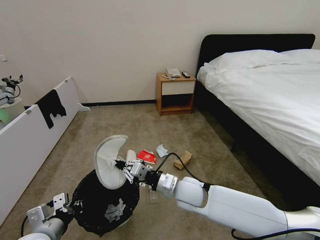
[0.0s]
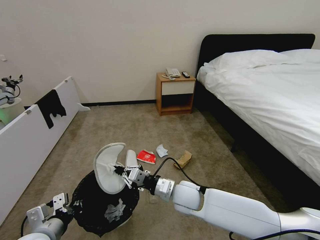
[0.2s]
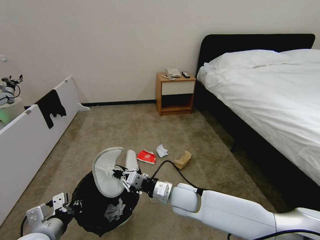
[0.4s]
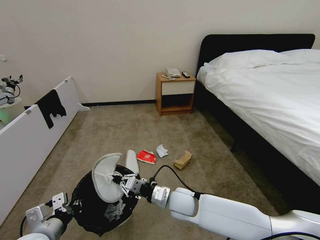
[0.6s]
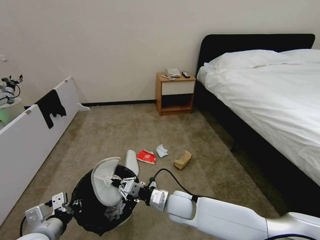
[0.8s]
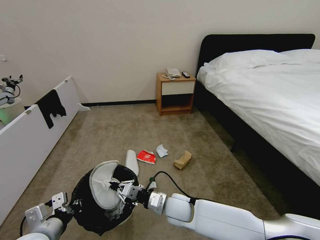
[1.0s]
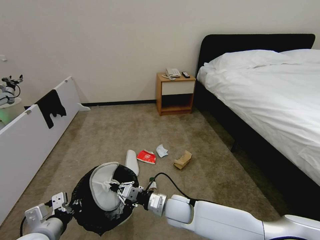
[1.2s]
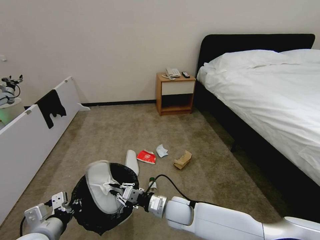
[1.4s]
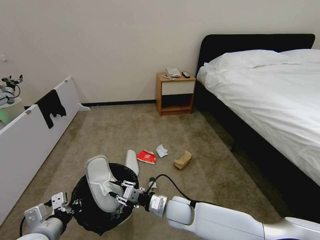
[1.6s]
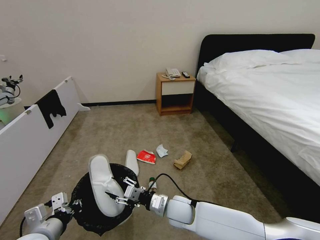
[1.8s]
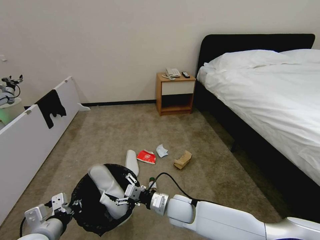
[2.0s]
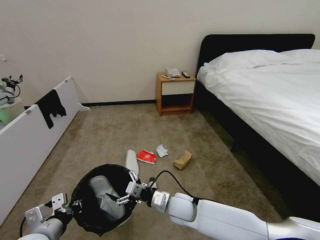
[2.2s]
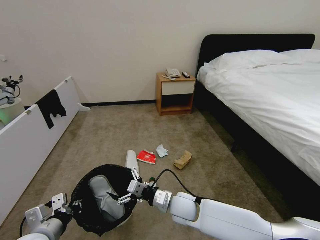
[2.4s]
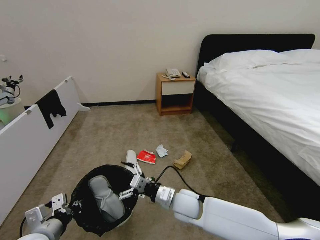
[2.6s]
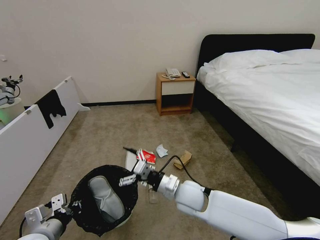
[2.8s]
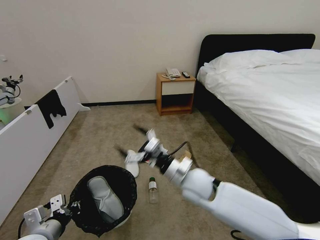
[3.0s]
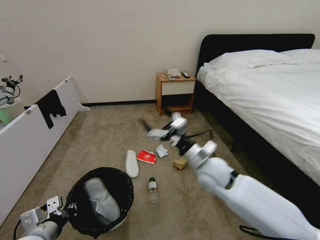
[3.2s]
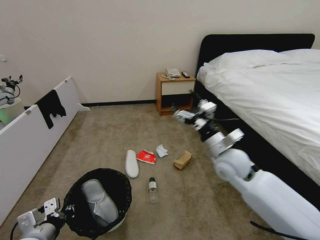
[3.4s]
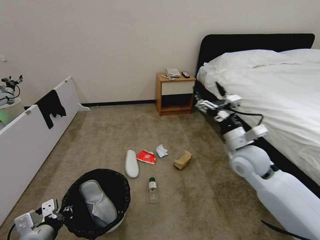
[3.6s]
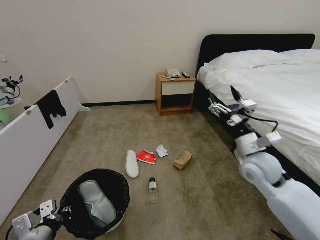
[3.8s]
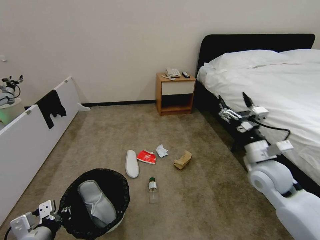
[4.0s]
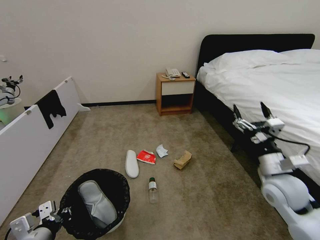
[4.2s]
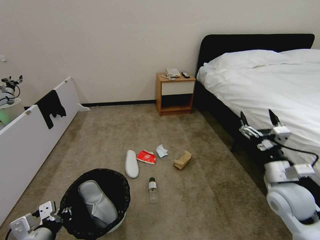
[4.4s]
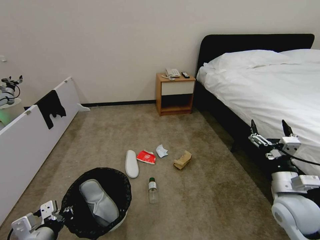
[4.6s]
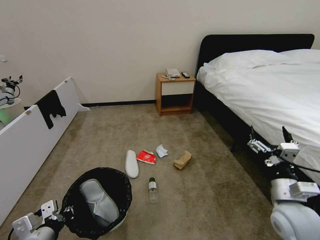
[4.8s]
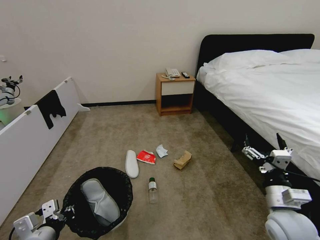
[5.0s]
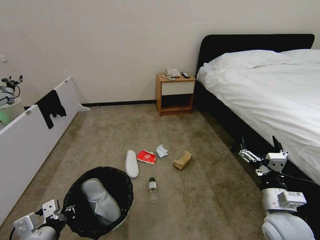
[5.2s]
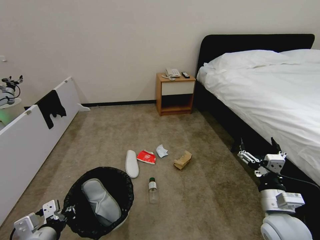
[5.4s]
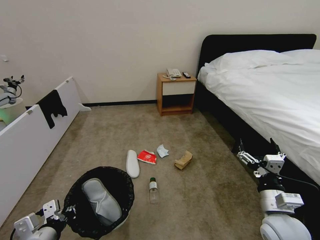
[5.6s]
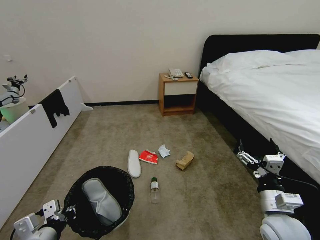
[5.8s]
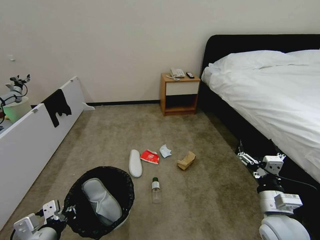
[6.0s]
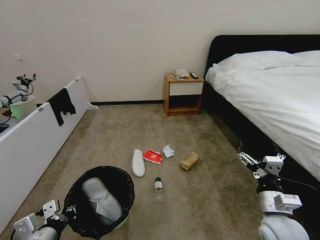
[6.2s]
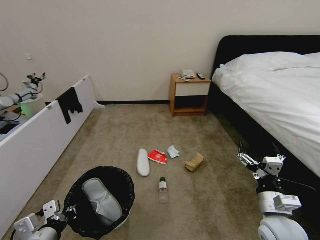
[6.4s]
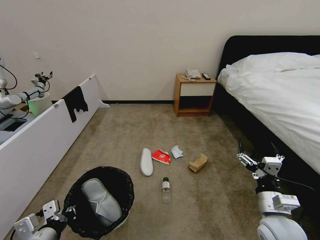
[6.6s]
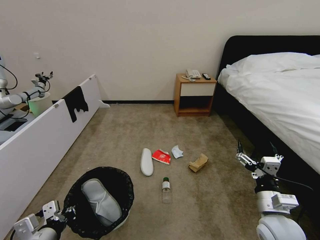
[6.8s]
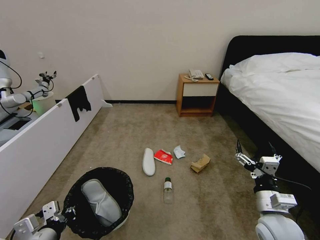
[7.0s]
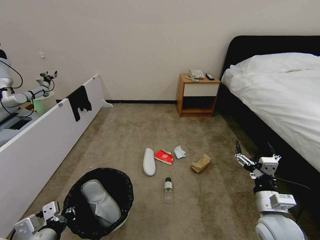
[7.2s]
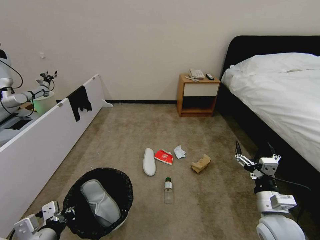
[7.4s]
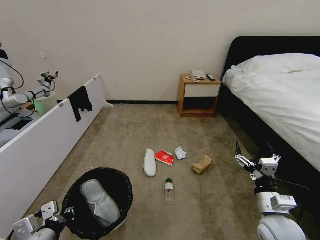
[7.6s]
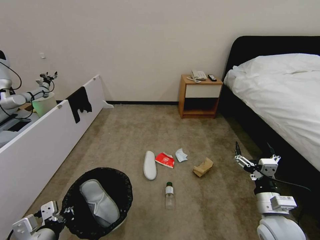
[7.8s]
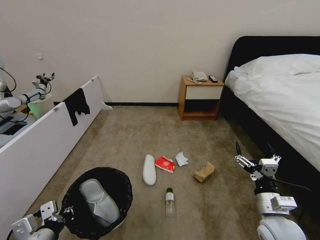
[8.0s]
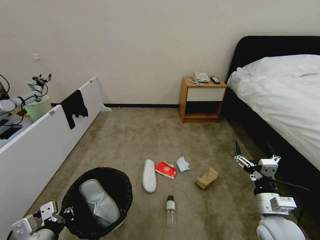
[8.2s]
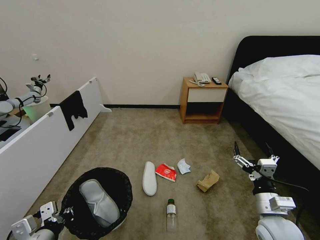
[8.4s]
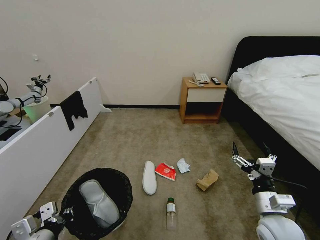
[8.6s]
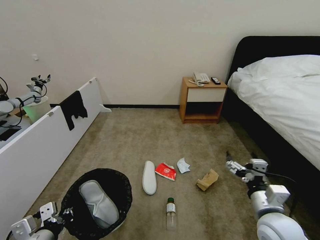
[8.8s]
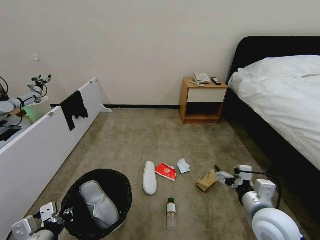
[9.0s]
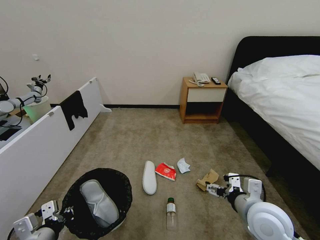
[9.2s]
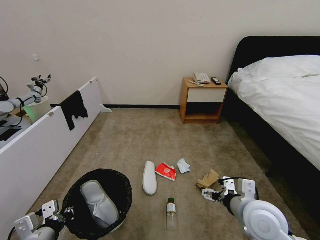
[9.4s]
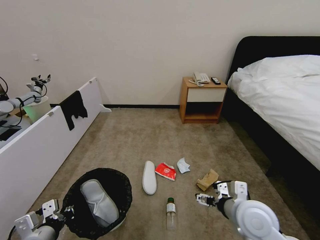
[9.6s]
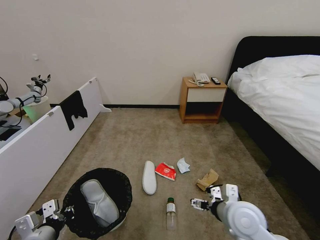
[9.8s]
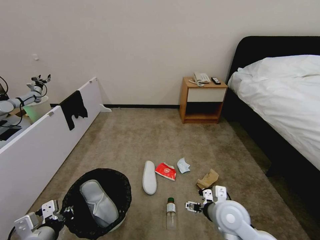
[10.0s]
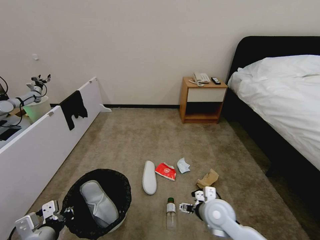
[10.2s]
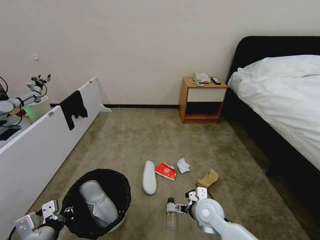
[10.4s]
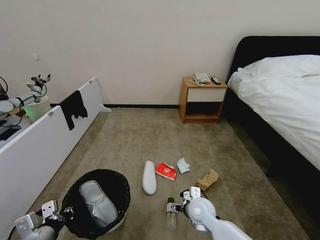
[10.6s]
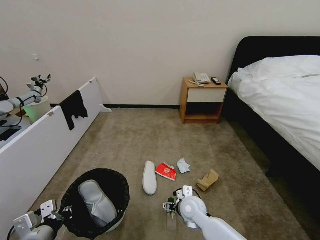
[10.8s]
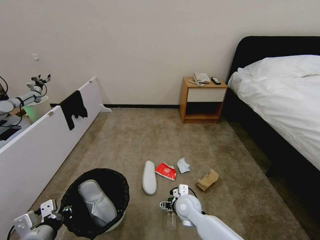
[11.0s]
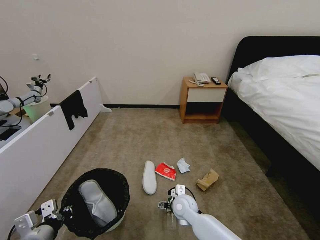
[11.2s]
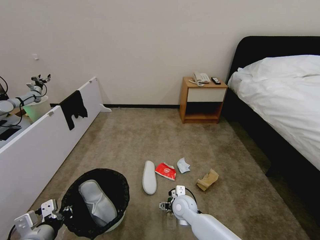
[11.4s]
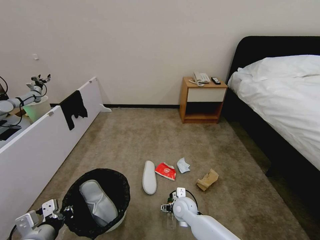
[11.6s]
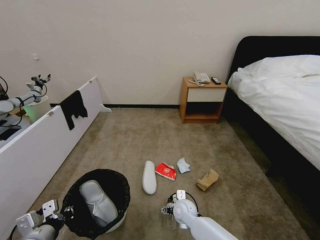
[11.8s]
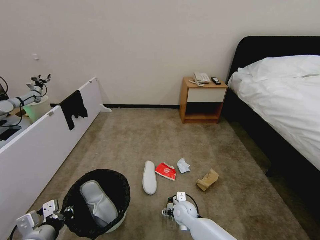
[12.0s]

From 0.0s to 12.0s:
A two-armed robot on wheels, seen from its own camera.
Task of the whole recording: Pick up the trash bin, then pick up the garbage from the floor and place it into the trash bin.
From 0.0s to 1.6s: The right gripper goes roughly 10 cm downward.
From 1.6s to 3.0s: The right gripper heads upward, covering about 15 cm, and opens.
From 3.0s to 4.4s: The right gripper travels to the right by some 25 cm.
From 4.4s to 6.0s: The right gripper shifts some 5 cm backward.
From 7.6s to 9.0s: The right gripper moves about 5 cm.
From 9.0s to 10.4s: The right gripper moves downward, to the left and forward, approximately 20 cm.
From 10.4s to 12.0s: The right gripper travels downward and to the left by some 10 cm.

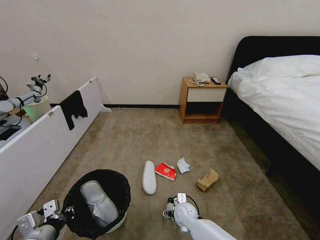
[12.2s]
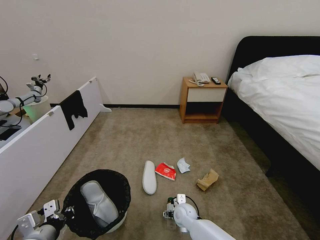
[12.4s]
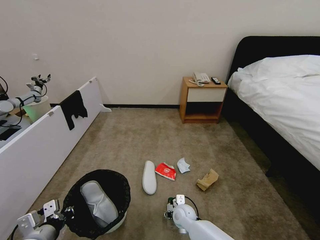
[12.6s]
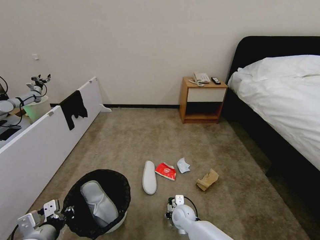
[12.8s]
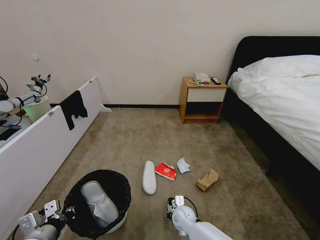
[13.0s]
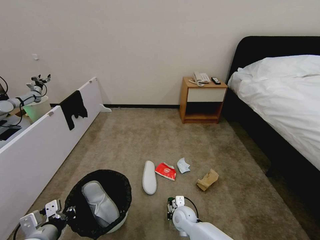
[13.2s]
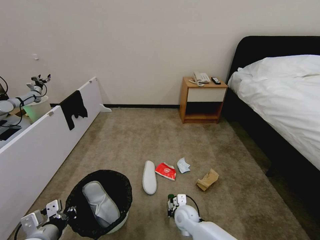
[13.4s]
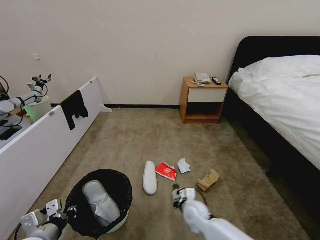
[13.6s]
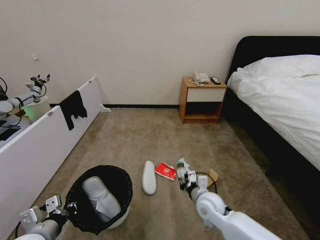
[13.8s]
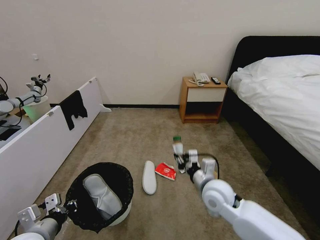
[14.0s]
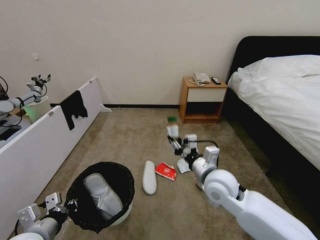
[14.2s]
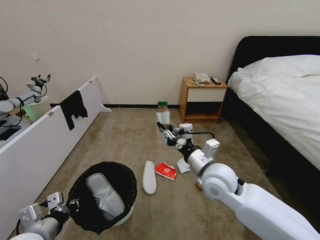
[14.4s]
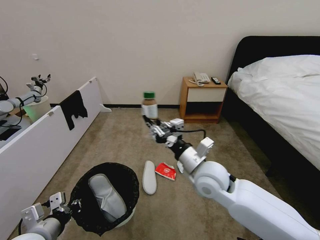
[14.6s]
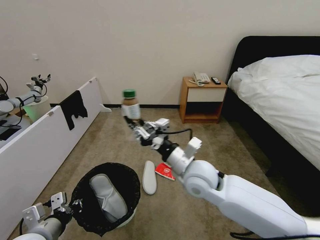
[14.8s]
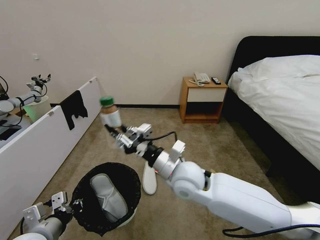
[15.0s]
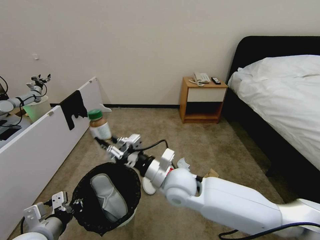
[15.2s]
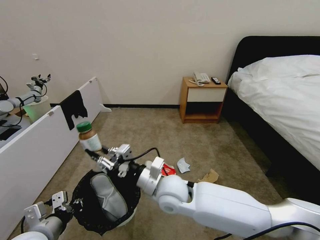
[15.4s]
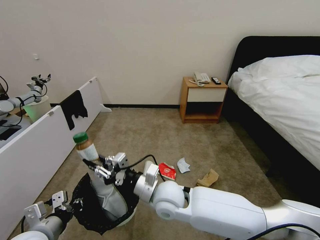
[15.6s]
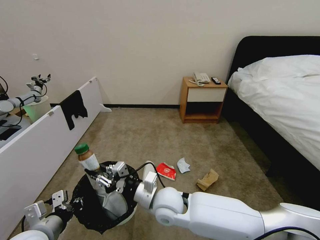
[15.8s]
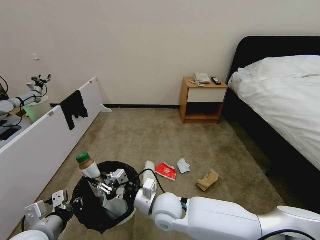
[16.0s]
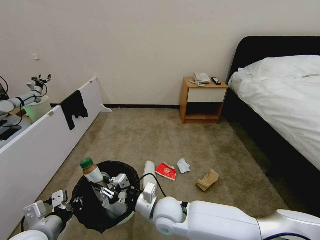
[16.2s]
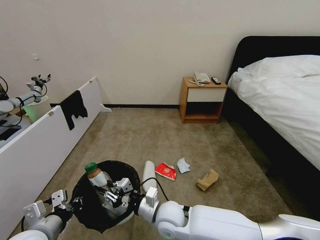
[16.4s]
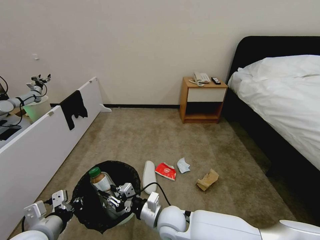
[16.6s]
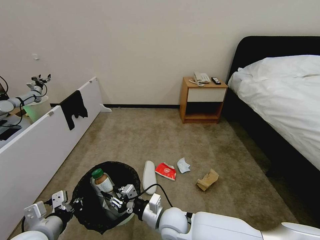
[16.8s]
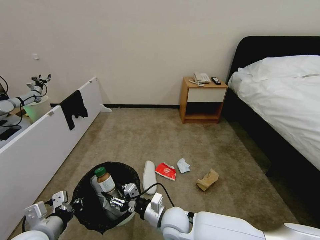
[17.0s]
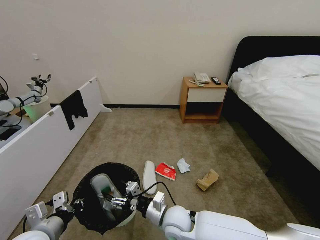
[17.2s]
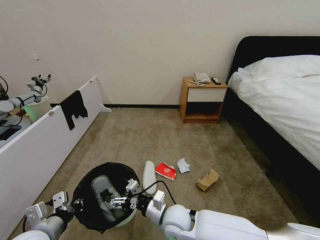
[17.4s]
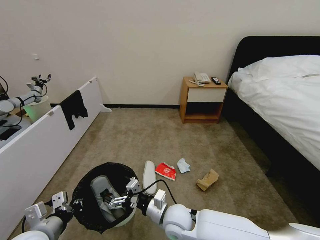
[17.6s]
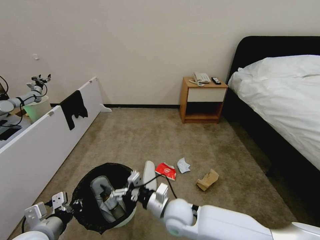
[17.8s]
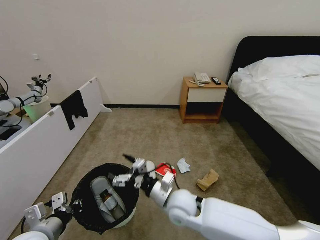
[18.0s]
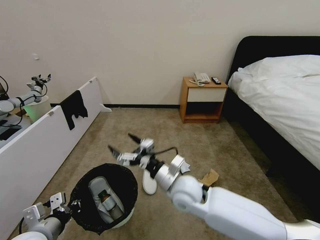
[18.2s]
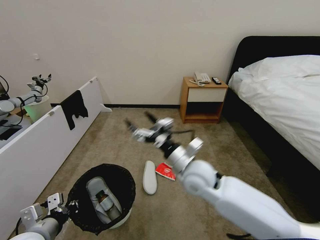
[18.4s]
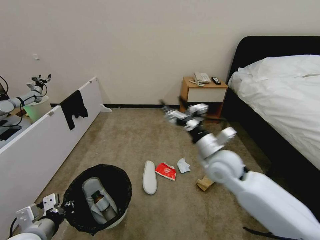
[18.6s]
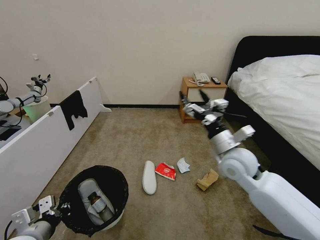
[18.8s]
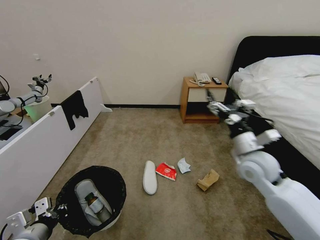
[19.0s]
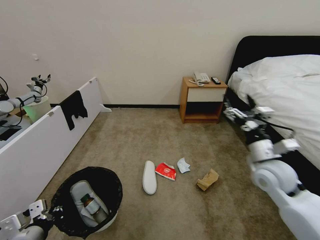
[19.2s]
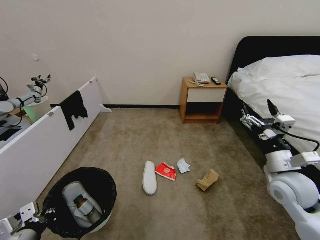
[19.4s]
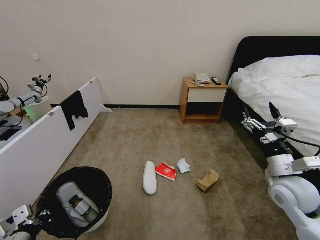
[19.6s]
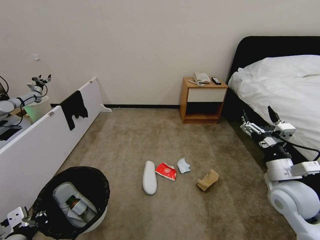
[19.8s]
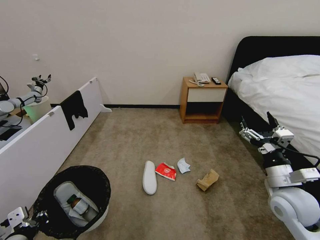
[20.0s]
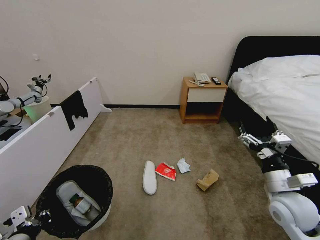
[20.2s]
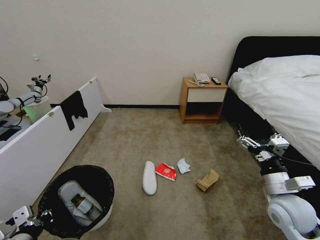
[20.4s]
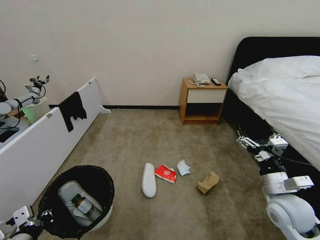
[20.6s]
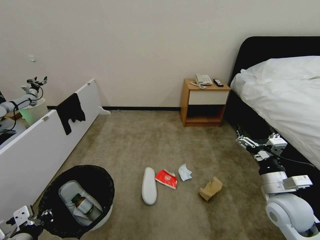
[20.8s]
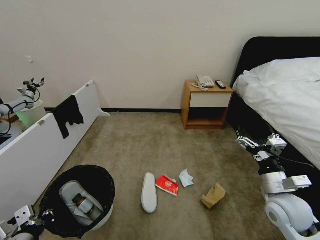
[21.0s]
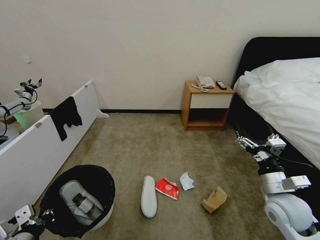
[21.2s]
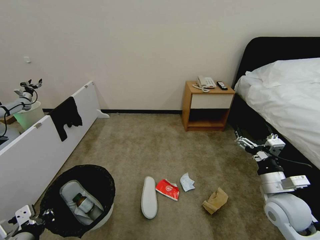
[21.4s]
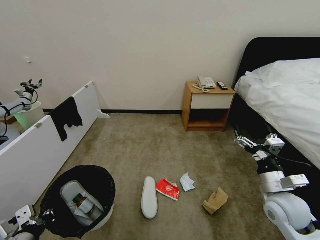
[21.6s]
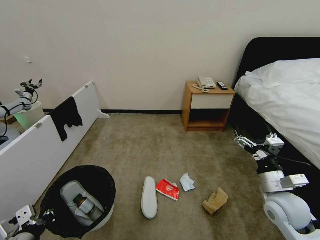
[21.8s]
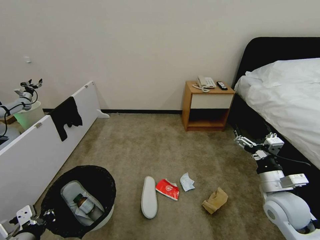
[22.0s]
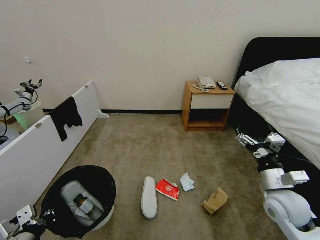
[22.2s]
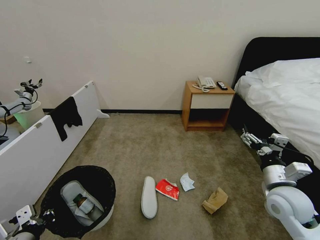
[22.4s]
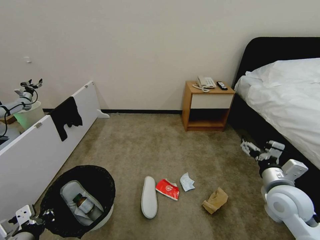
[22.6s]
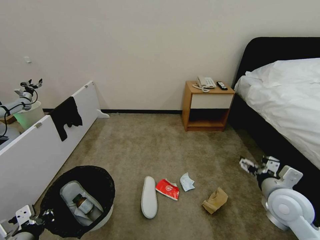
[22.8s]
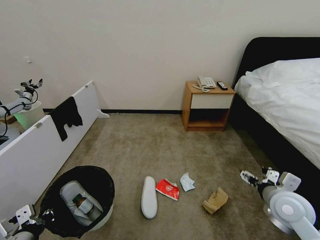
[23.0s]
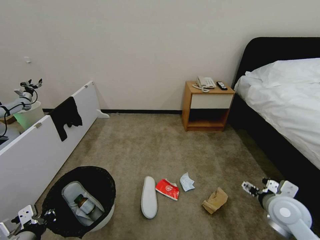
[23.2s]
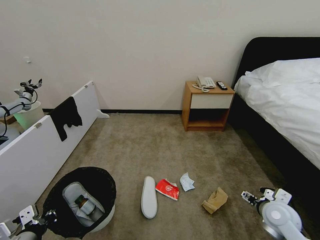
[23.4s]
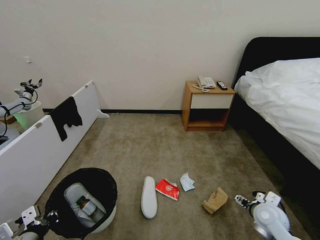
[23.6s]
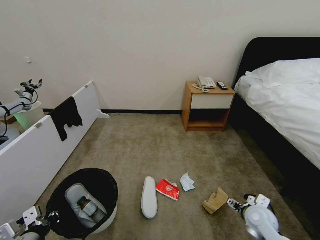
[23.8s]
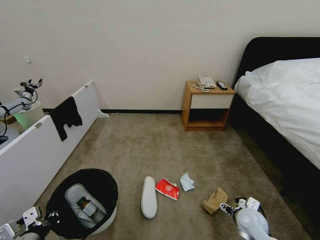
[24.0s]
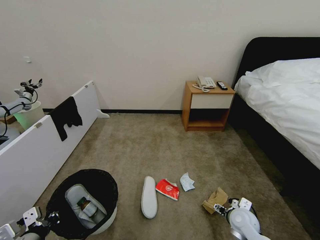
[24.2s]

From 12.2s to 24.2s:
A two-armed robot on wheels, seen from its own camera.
Task of the whole recording: Pick up the trash bin, then pick up the garbage from the floor and place it into the trash bin.
From 12.2s to 13.8s: The right gripper heads upward and to the right, covering about 15 cm, and closes.
From 13.8s to 15.2s: The right gripper goes about 20 cm upward and to the left.
From 15.2s to 16.6s: The right gripper shifts approximately 15 cm downward.
From 16.6s to 18.2s: The right gripper is displaced upward by roughly 10 cm, and opens.
From 18.2s to 19.8s: The left gripper moves roughly 5 cm; the right gripper moves to the right, approximately 30 cm.
From 22.6s to 24.2s: The right gripper moves downward, roughly 20 cm.
